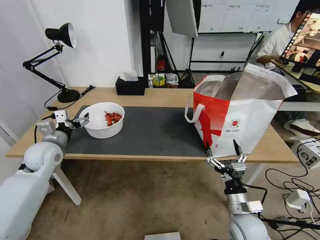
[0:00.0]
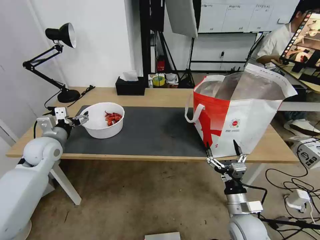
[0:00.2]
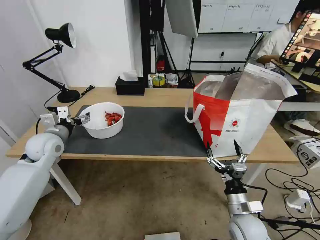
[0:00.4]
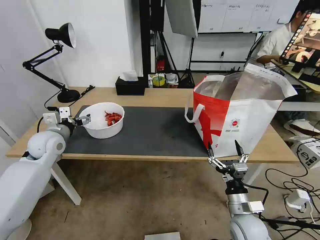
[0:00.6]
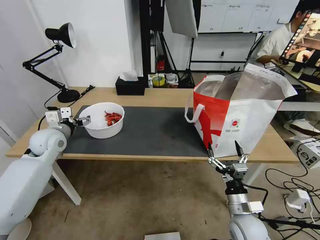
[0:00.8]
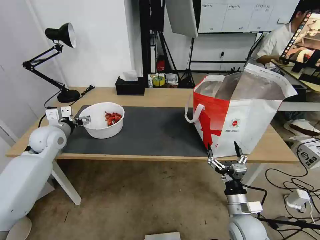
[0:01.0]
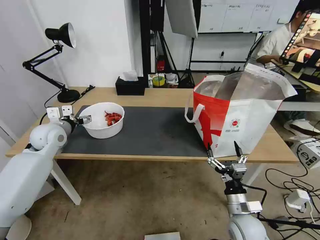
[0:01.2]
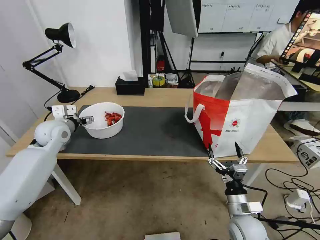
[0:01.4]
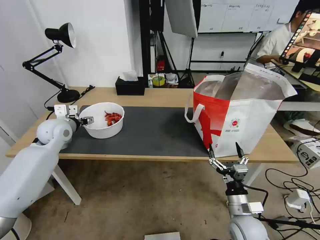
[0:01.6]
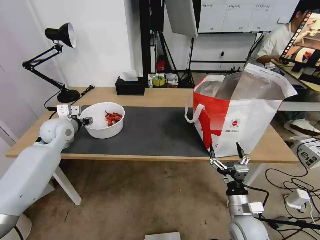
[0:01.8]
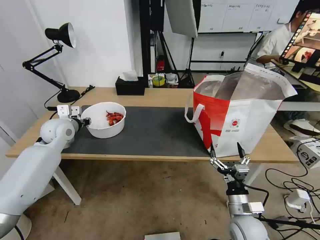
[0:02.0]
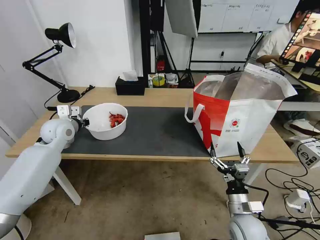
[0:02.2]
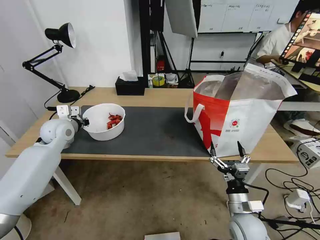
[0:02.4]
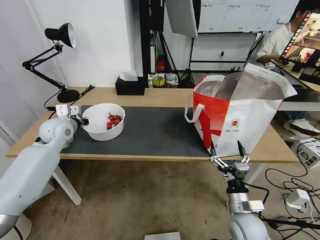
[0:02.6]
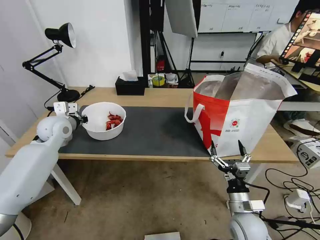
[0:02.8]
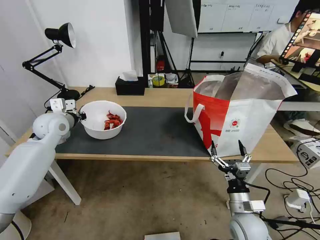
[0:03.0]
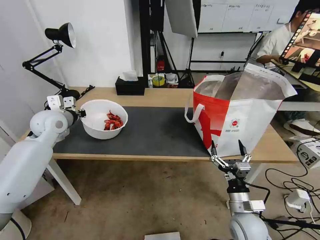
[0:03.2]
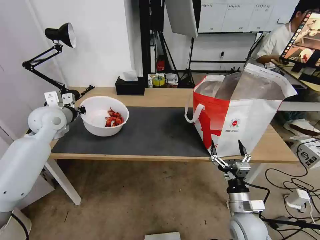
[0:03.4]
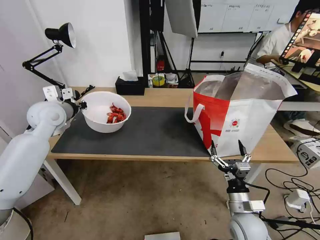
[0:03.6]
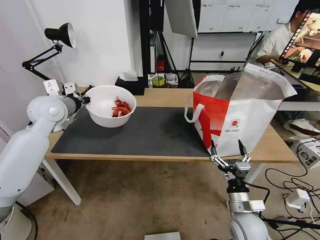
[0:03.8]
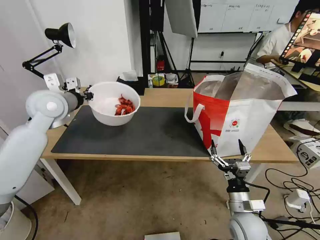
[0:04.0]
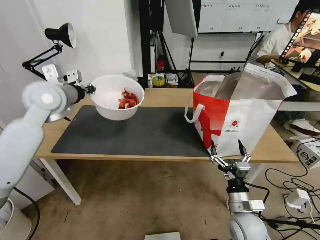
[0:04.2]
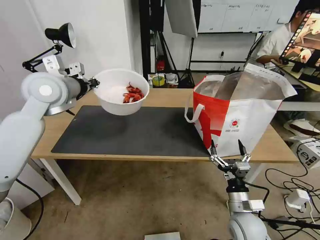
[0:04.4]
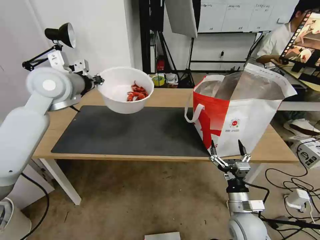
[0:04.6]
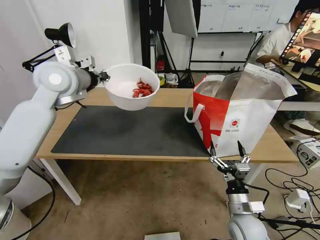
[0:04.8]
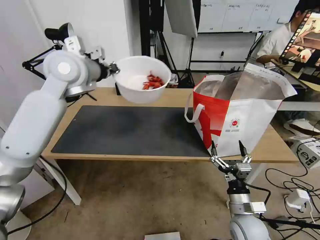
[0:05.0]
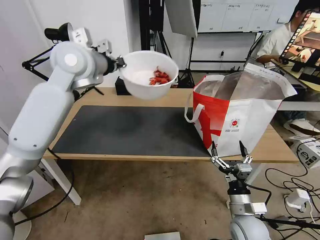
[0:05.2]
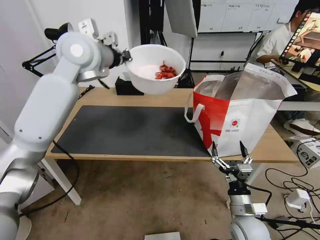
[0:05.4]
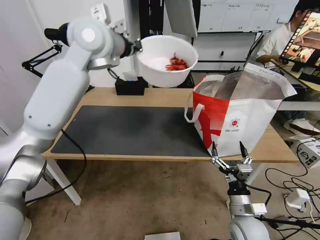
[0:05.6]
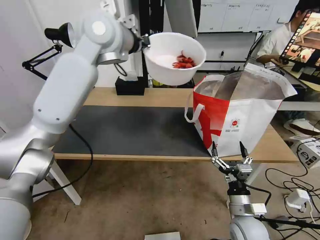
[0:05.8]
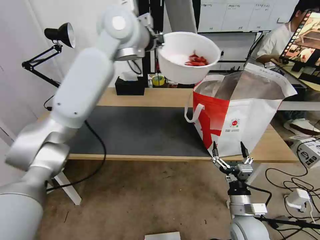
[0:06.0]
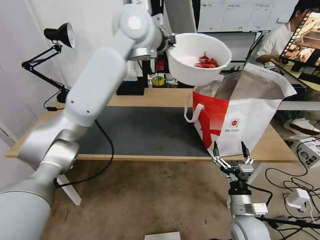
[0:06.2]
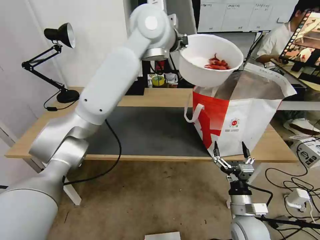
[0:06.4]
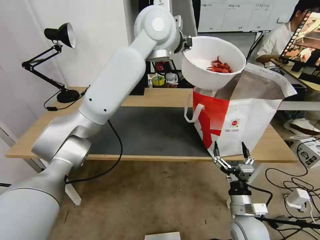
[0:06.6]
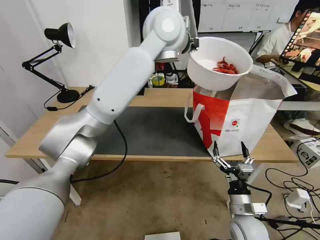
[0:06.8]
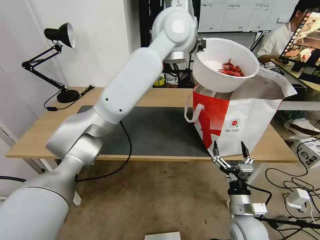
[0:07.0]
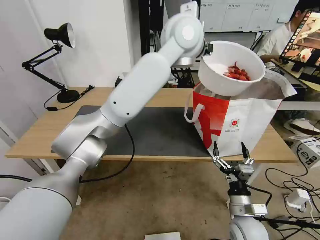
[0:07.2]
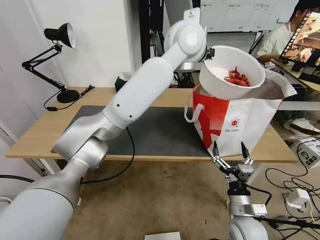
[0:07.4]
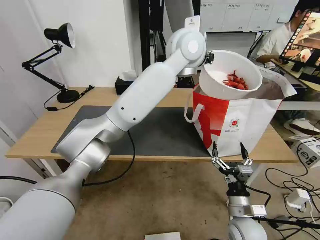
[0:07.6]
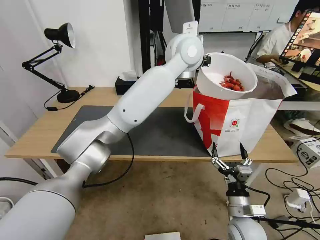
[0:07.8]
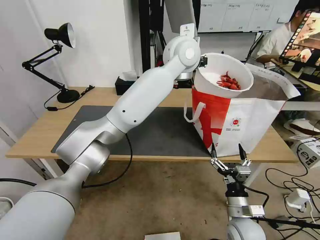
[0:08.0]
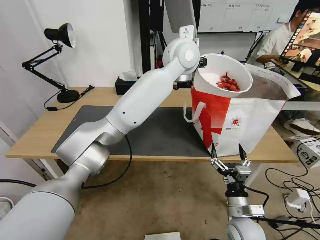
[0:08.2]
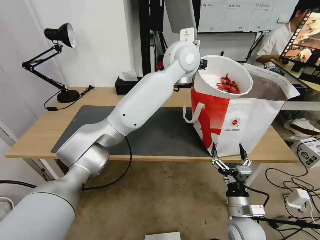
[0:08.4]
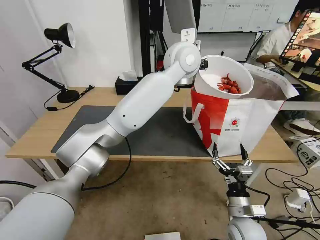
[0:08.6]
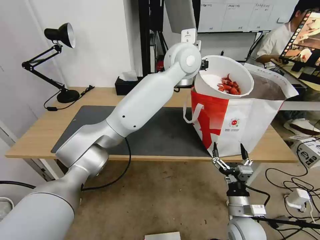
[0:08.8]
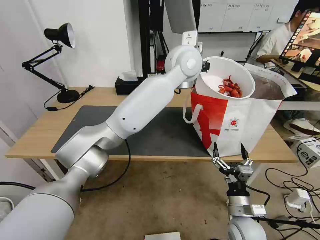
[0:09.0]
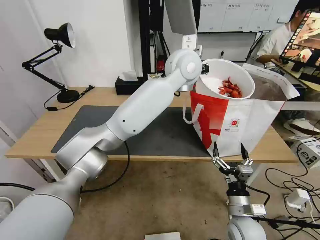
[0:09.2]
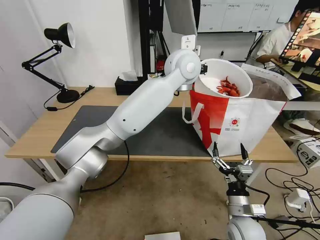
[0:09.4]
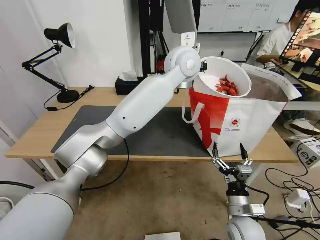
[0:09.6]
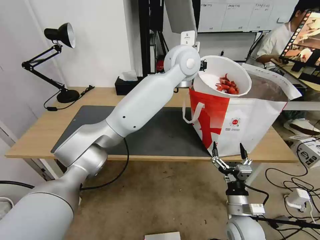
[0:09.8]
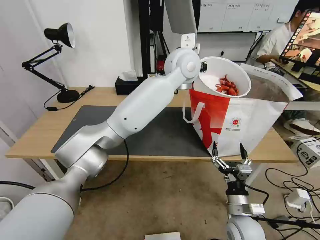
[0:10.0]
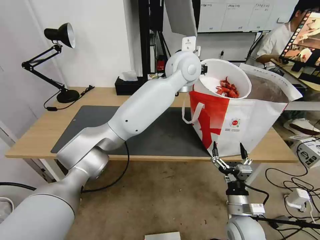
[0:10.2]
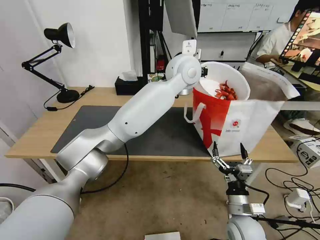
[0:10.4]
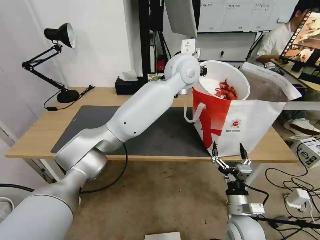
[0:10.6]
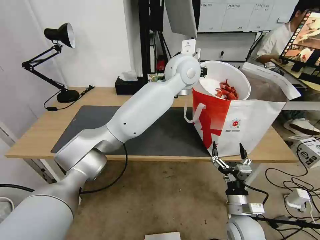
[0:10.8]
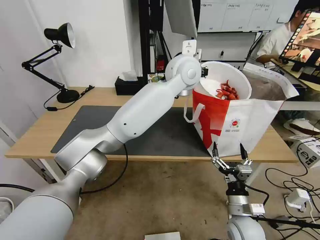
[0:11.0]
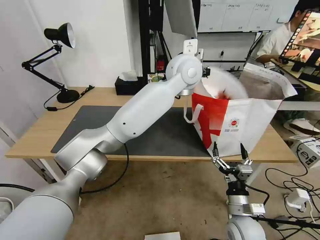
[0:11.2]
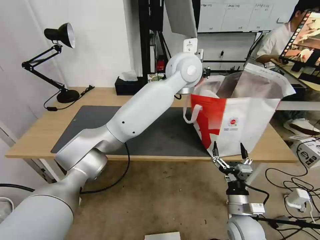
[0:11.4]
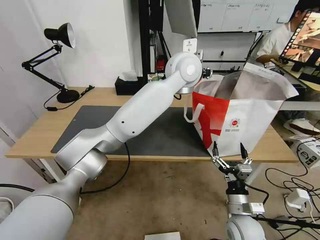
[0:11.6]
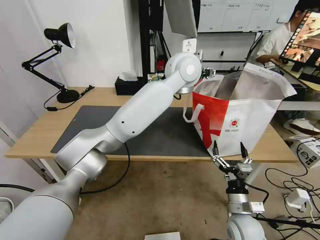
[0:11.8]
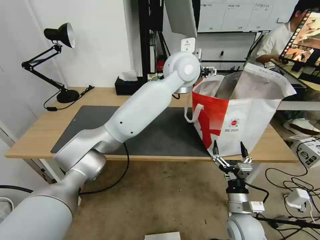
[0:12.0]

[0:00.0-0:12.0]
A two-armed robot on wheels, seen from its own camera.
Task of the whole recording: Pick up the trash from the table and place it into the takeout bag.
0:00.0 to 0:01.6: The left gripper shifts about 5 cm forward.
0:01.6 to 0:03.0: The left gripper closes its fingers.
0:03.0 to 0:04.4: The left gripper heads upward and to the right, covering some 15 cm.
0:04.4 to 0:06.0: The left gripper heads to the right and upward, covering approximately 25 cm.
0:06.0 to 0:07.6: The left gripper is displaced to the right by roughly 15 cm.
0:07.6 to 0:10.4: There are only small adjustments of the grippers.
0:10.4 to 0:12.0: The left gripper opens its fingers.

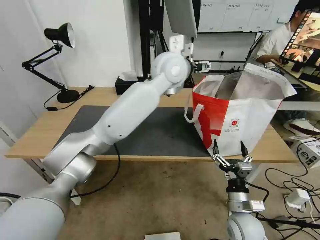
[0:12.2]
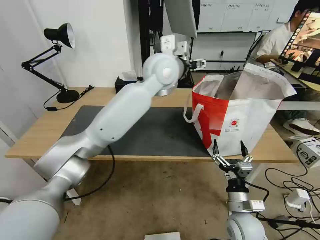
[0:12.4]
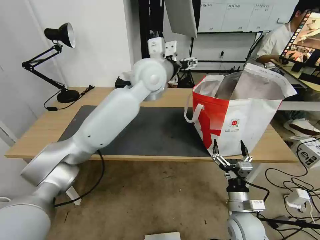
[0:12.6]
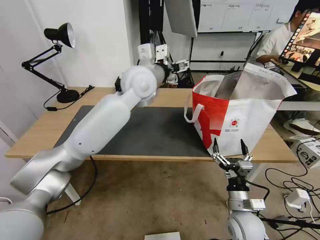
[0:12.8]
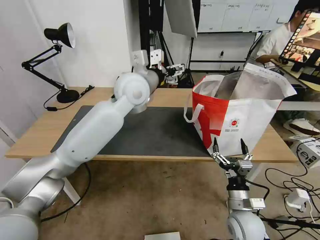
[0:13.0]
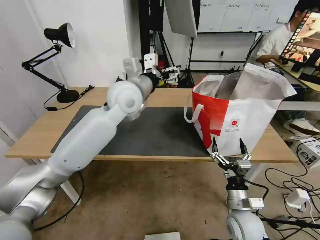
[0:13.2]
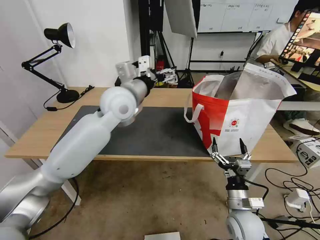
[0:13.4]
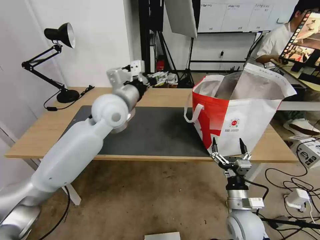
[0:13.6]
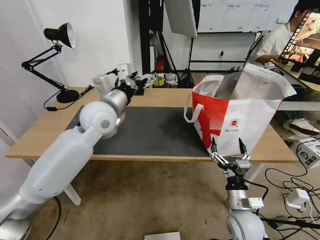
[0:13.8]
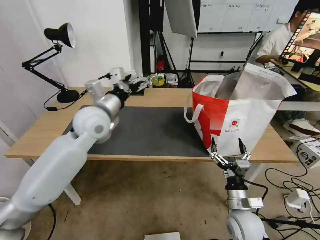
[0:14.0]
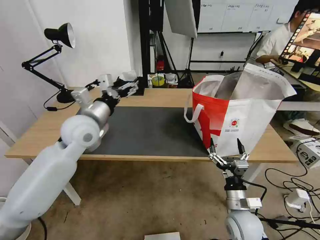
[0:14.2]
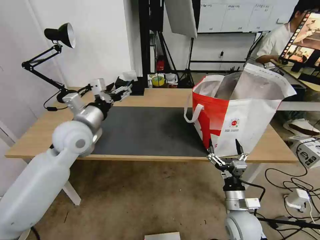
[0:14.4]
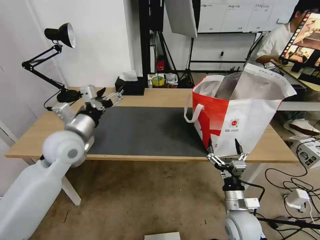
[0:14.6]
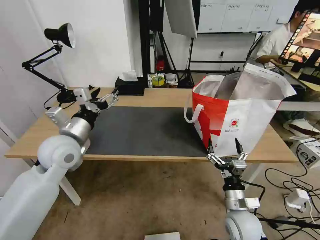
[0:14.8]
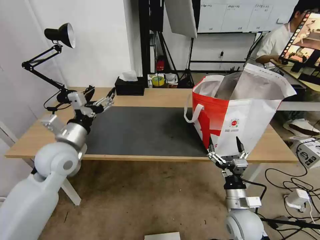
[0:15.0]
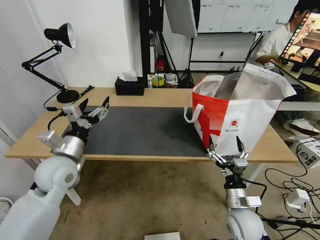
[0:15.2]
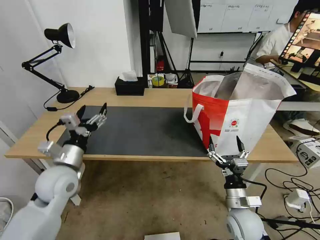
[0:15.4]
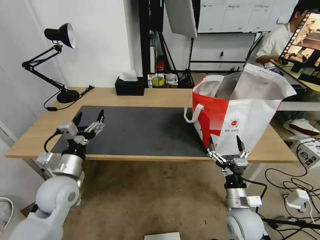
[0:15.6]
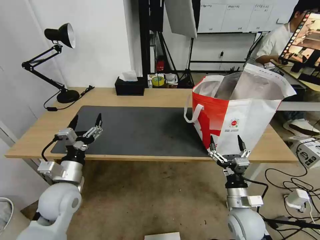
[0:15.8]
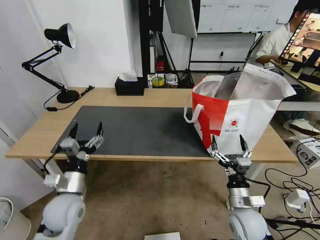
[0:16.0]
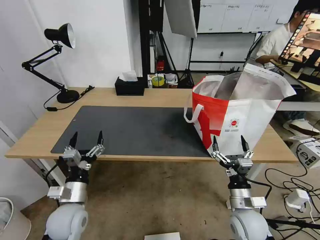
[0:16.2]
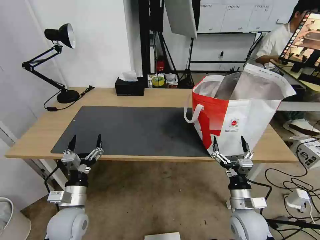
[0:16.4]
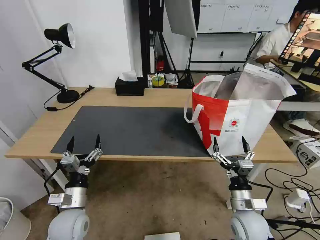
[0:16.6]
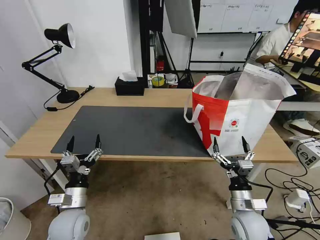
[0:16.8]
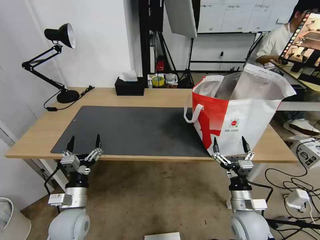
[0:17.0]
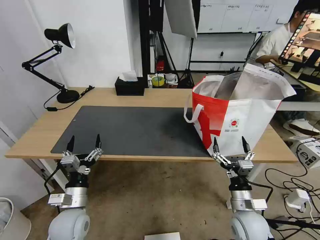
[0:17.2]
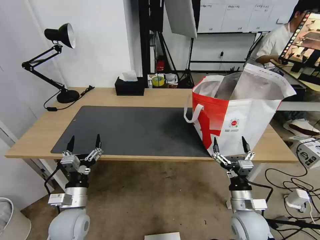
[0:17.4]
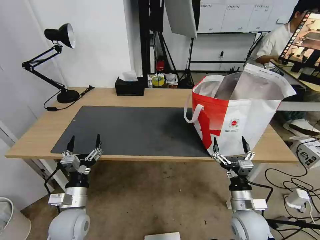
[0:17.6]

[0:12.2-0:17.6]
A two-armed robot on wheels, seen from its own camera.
Task of the whole recording: Pick up the trash from the table and place it into the takeout bag.
0:12.2 to 0:13.6: The left gripper shifts approximately 20 cm to the left and downward.
0:13.6 to 0:15.0: The left gripper moves to the left, backward and downward, some 20 cm.
0:15.0 to 0:16.2: The left gripper moves downward and backward, about 20 cm.
0:16.2 to 0:17.6: The grippers make only small movements.

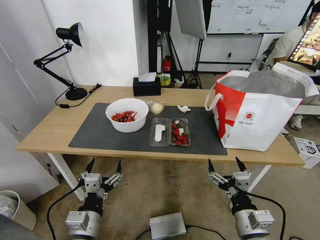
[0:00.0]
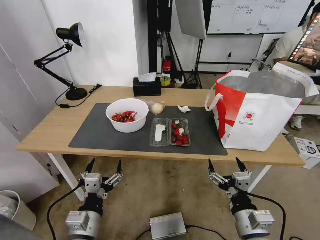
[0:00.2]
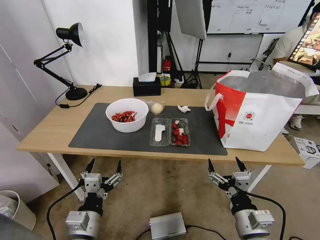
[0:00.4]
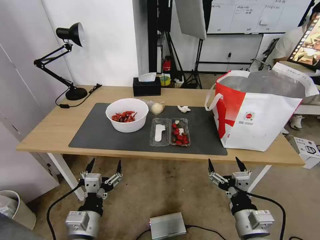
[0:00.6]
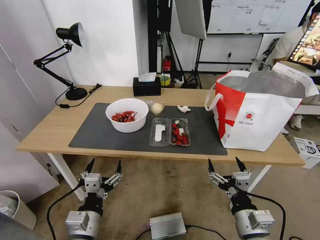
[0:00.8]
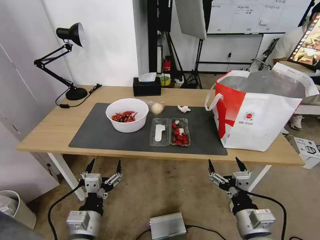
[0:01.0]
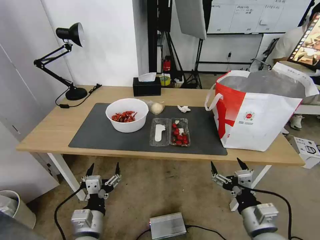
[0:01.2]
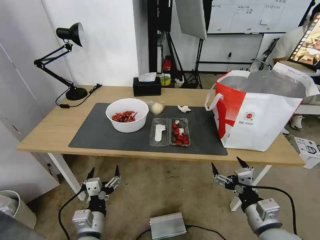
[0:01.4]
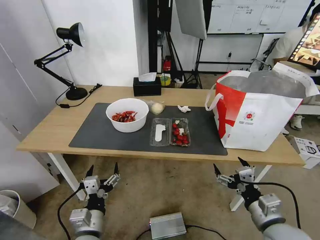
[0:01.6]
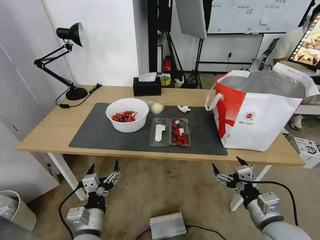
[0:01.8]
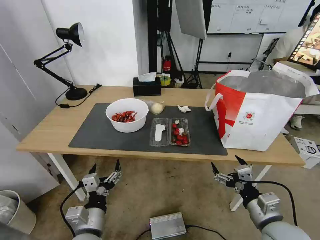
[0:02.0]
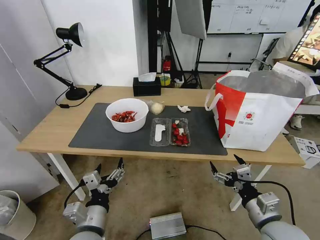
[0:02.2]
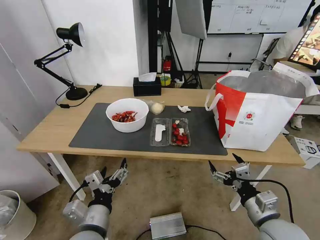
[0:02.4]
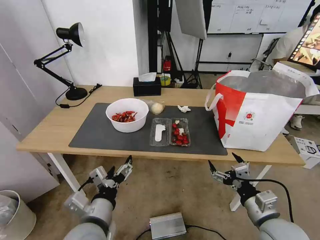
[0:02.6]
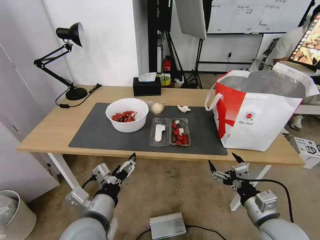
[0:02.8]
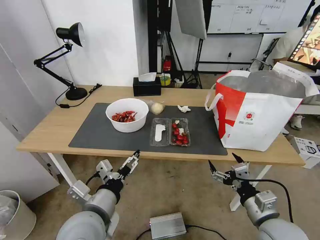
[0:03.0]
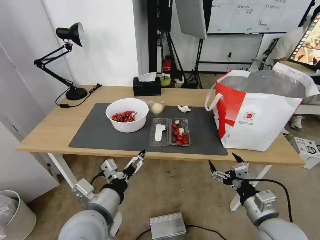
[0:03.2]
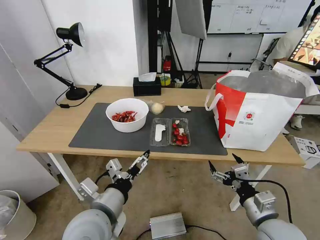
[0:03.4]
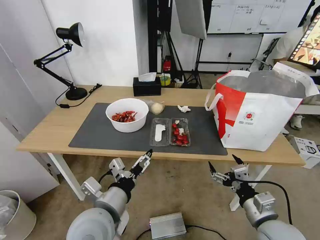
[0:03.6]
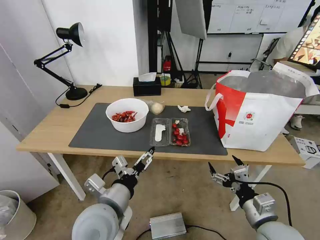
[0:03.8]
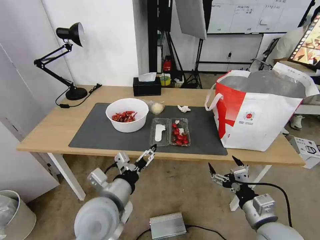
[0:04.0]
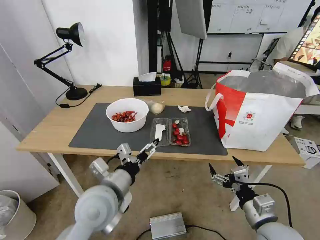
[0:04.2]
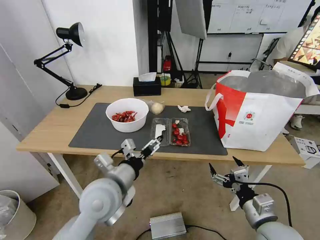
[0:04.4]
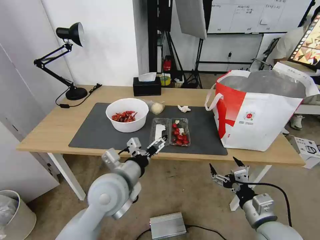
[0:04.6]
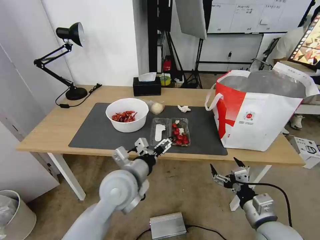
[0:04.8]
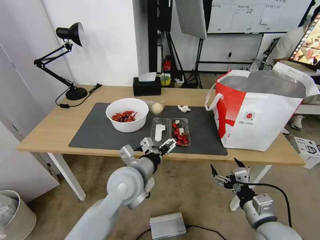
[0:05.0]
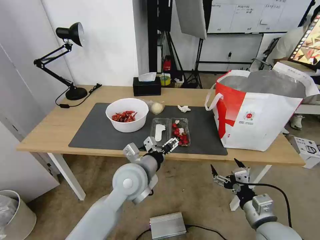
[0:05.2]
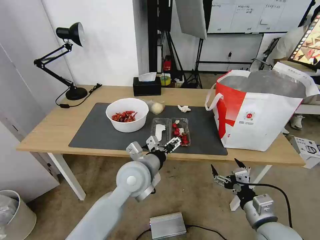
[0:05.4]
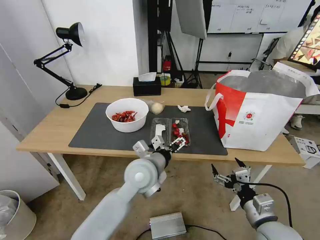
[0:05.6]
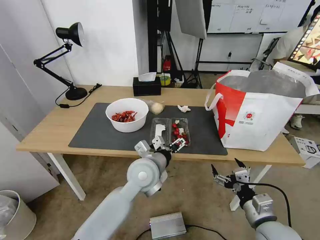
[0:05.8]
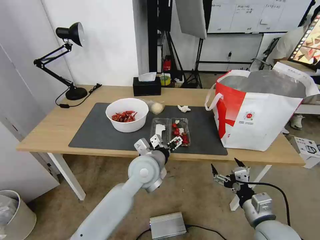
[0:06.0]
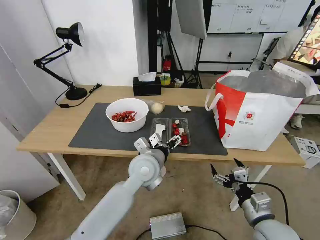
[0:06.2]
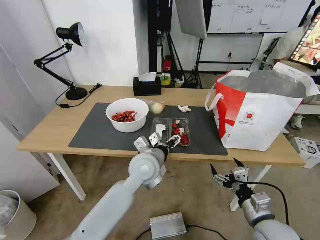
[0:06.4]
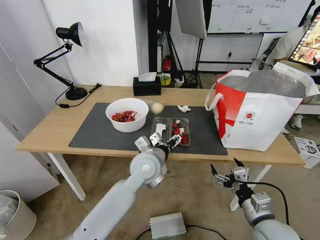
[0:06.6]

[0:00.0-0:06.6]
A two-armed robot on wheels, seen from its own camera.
Task of the whole recording: Pick up the trash from the table and place it into the takeout bag.
0:01.6 to 0:03.2: The left gripper goes approximately 10 cm upward.
0:03.2 to 0:05.0: The left gripper travels forward and to the right by approximately 15 cm.
0:05.0 to 0:06.6: The left gripper heads forward, covering roughly 5 cm.
